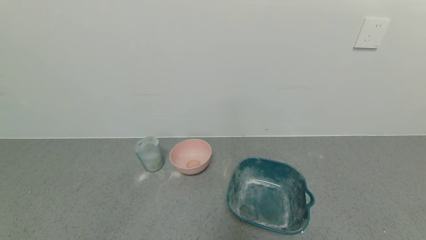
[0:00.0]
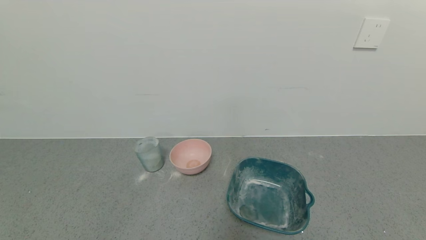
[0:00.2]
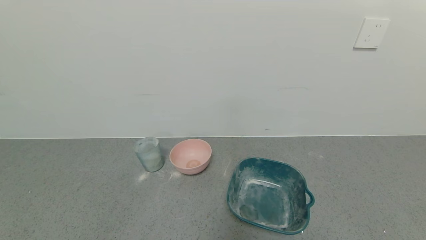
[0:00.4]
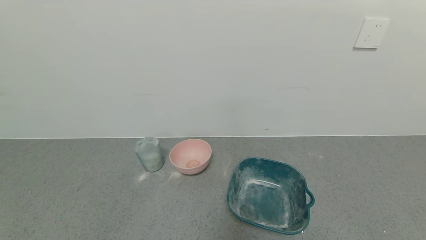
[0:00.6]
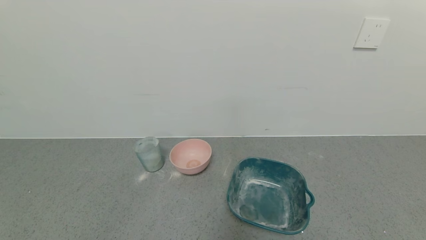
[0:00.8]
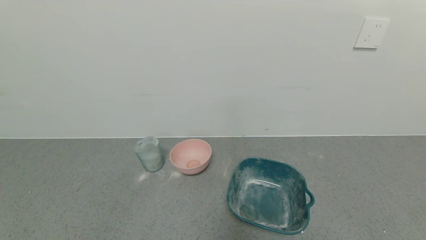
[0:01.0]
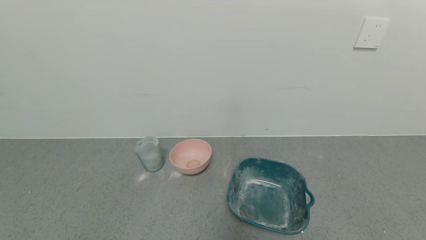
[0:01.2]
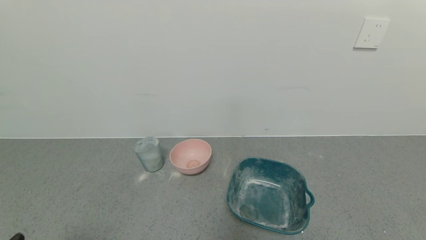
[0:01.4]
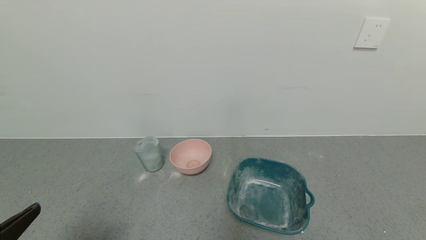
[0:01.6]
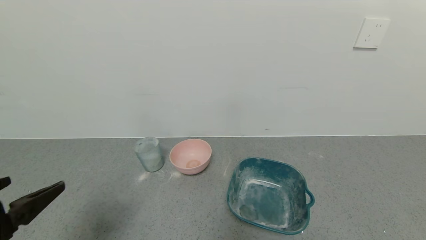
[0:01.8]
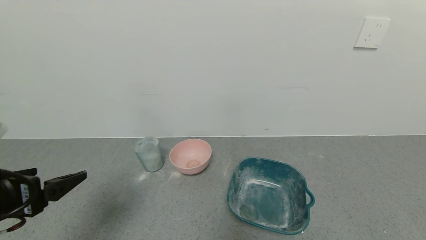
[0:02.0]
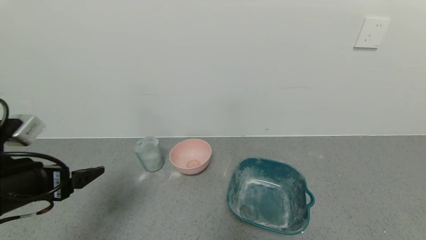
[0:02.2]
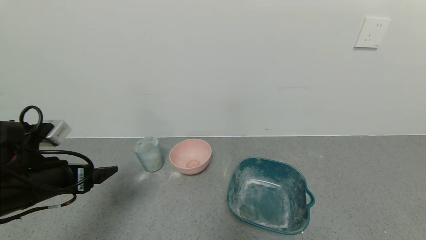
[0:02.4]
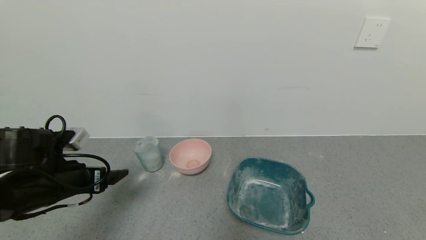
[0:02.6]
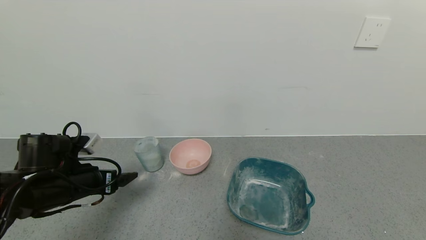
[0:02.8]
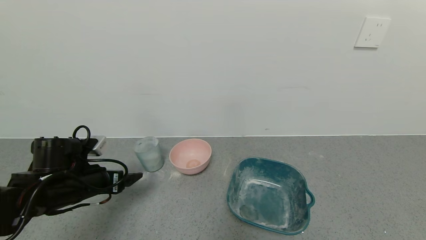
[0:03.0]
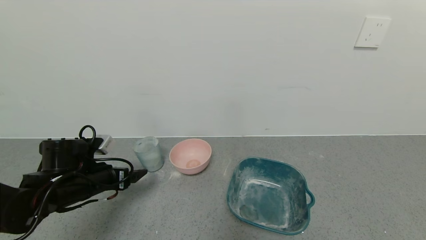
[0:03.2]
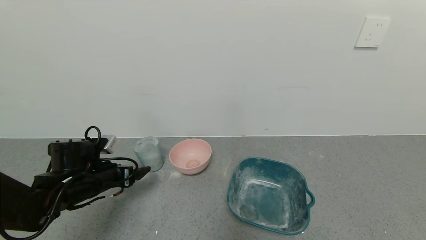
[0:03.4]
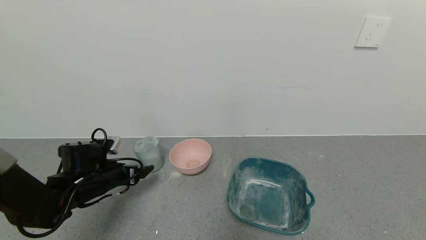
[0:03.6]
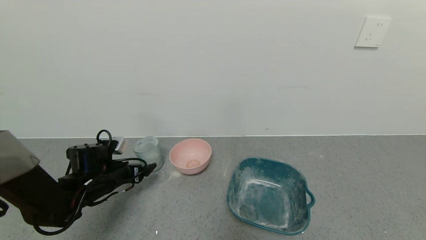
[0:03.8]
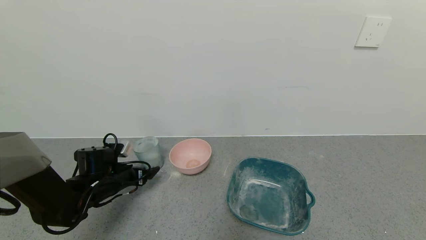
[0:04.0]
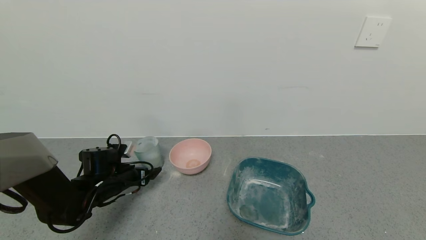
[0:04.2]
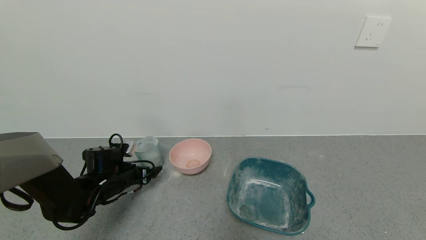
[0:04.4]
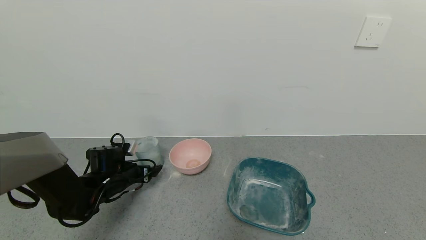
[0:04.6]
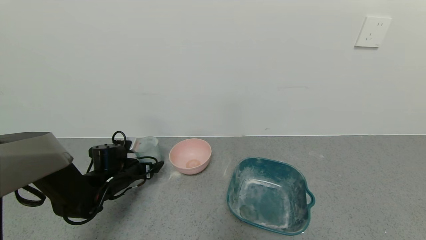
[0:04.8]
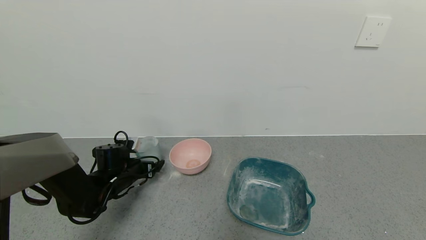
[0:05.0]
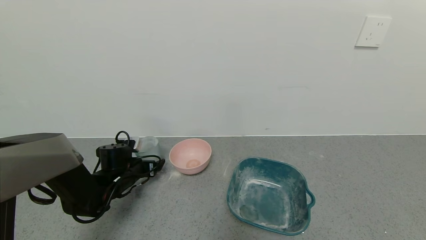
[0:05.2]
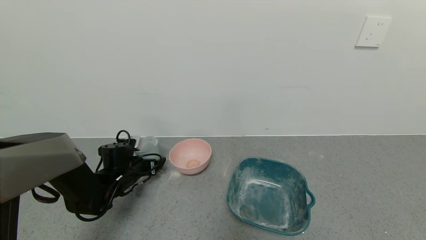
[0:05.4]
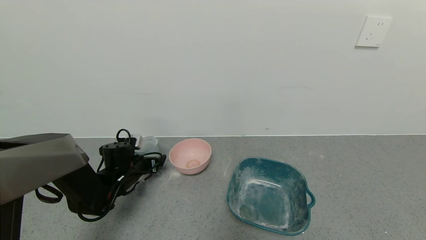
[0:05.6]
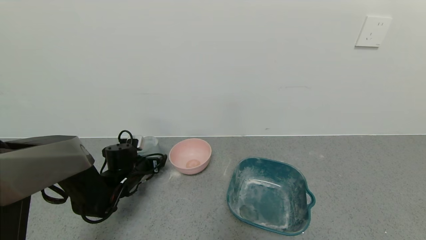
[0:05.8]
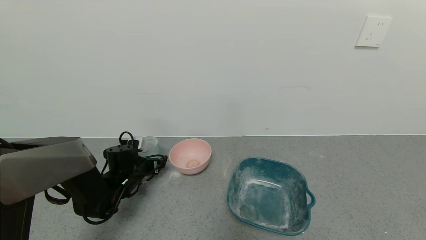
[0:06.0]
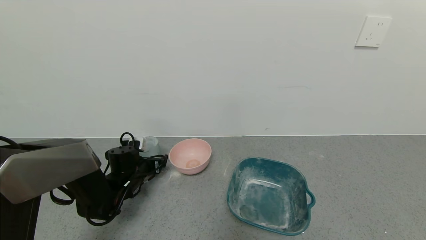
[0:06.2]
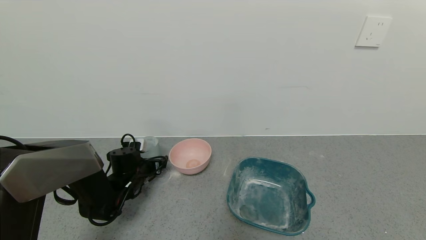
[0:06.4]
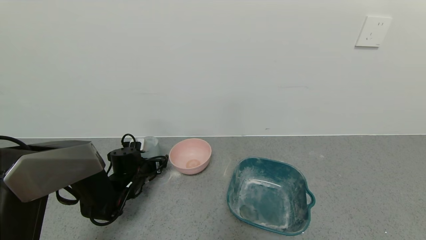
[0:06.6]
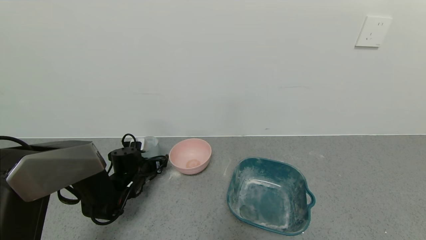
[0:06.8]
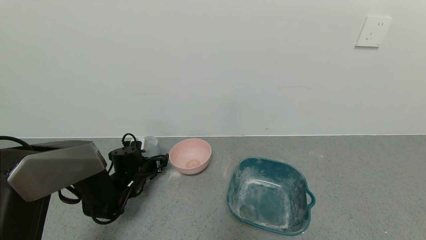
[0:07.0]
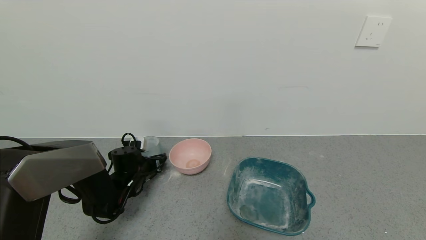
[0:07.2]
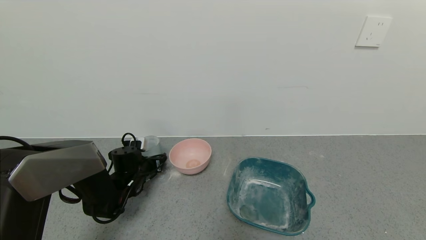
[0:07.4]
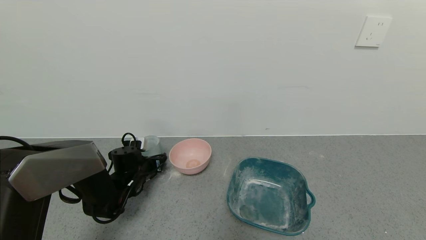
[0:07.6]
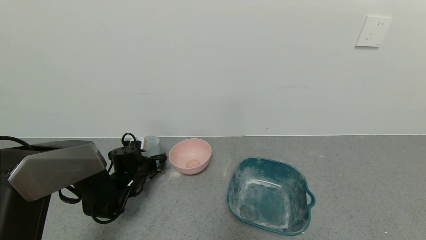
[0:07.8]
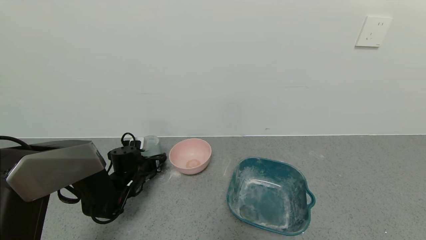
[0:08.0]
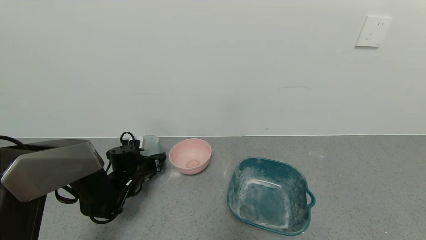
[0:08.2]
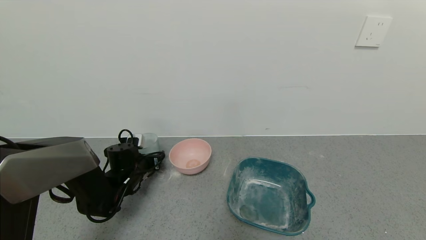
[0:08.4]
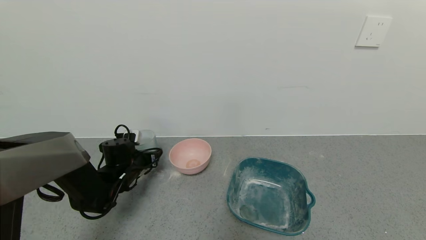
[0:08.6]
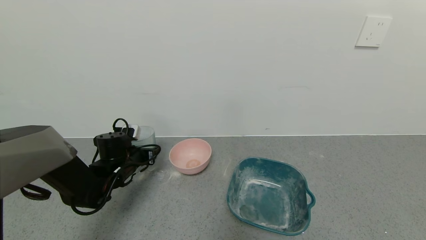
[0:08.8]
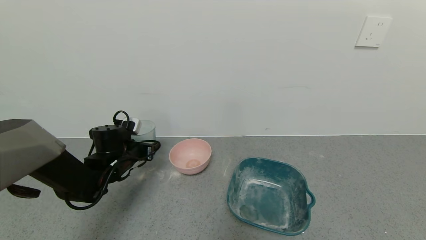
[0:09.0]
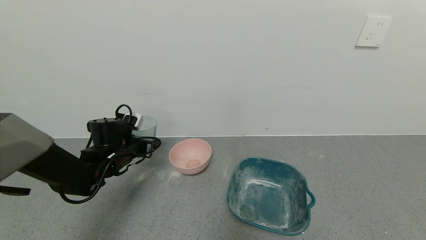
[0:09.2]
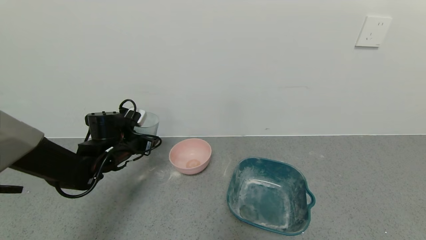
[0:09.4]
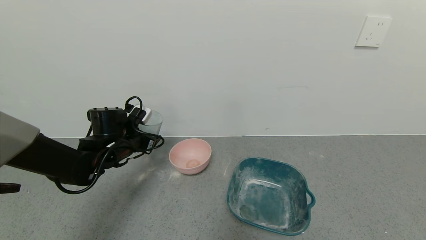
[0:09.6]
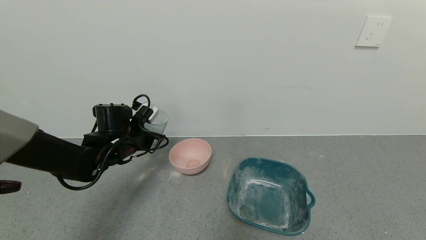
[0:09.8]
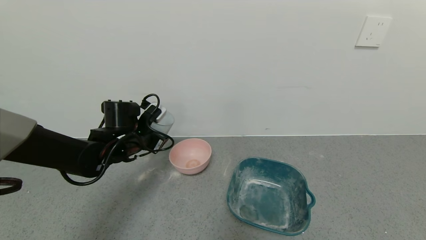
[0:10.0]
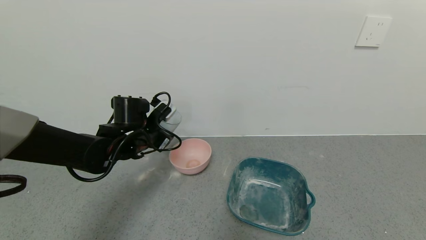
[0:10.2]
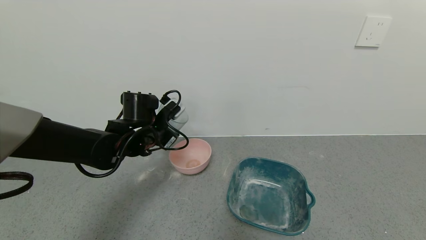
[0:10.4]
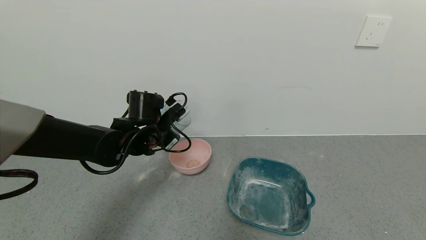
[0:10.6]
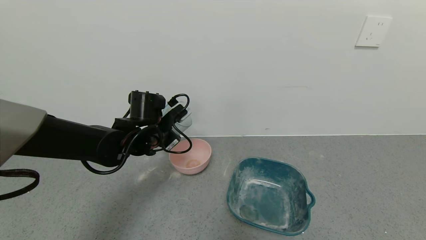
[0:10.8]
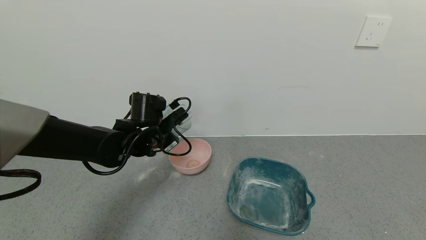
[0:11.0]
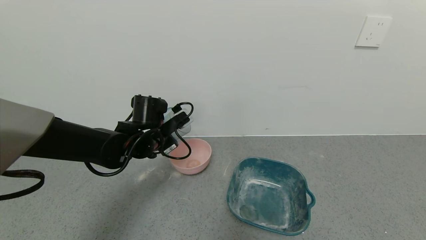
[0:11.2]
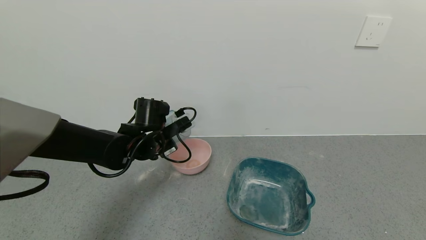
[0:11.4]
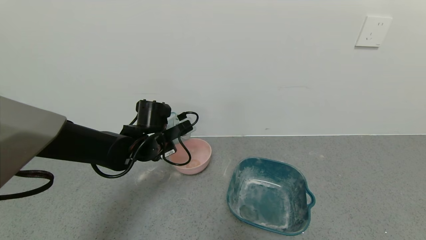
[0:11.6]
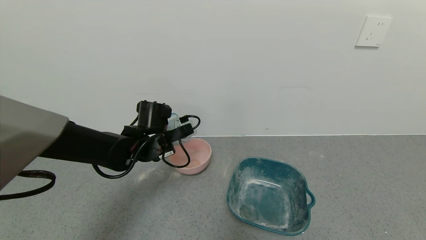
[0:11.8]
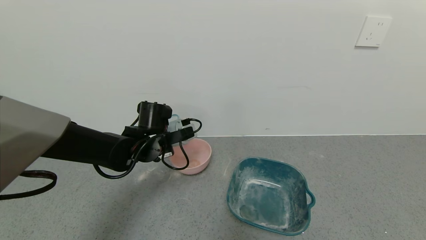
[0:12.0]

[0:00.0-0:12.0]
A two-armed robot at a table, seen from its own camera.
Task of the whole recording: use a gripper to pick up the cup and pour the powder into a bowl or tray.
Step, 0:00.0 to 0:07.4: Grasp the glass of powder with the left gripper.
0:00.0 to 0:01.6: The left gripper is displaced upward and forward by approximately 15 cm.
0:01.6 to 0:03.0: The left gripper is displaced forward and downward by some 25 cm.
0:03.0 to 0:04.4: The left gripper is displaced downward and forward by approximately 10 cm.
0:04.4 to 0:06.0: The grippers stay close to where they were, moving slightly.
0:06.0 to 0:07.6: The left gripper closes.
0:07.6 to 0:09.0: The left gripper goes approximately 10 cm upward.
0:09.0 to 0:10.4: The left gripper travels to the right and upward by about 10 cm.

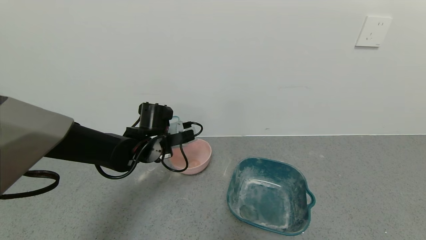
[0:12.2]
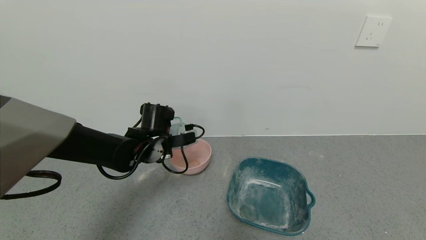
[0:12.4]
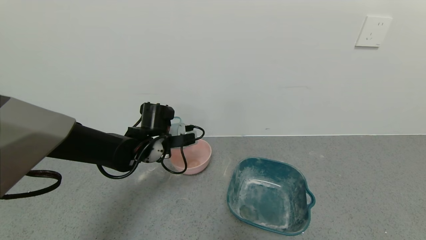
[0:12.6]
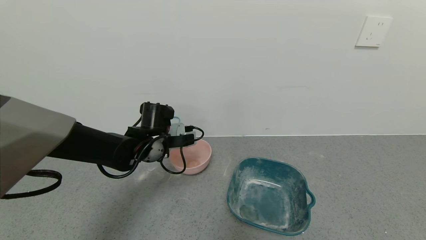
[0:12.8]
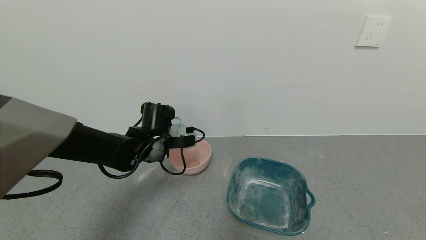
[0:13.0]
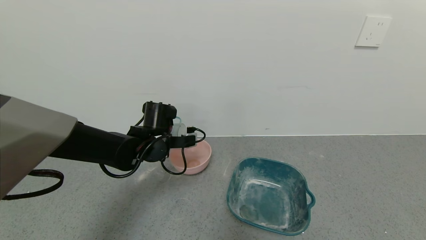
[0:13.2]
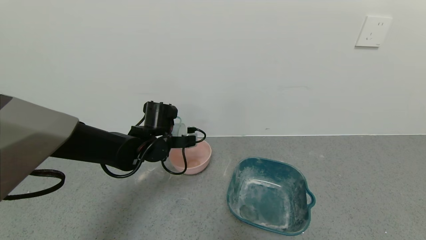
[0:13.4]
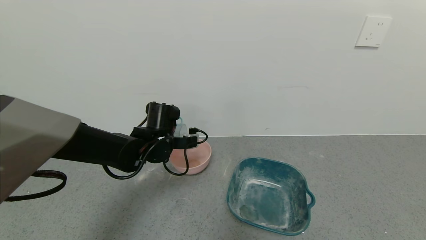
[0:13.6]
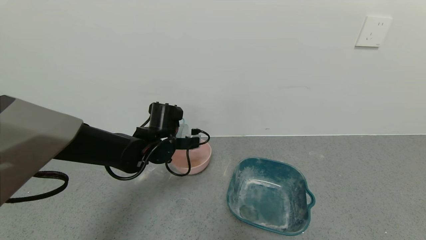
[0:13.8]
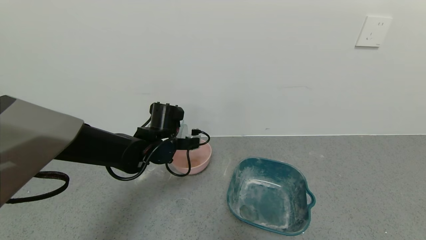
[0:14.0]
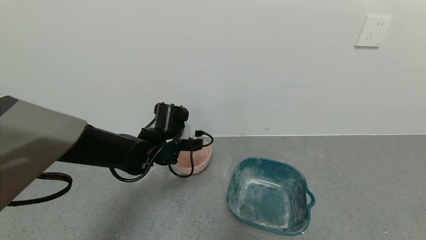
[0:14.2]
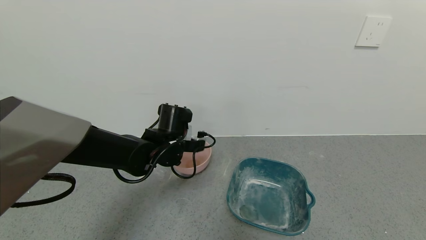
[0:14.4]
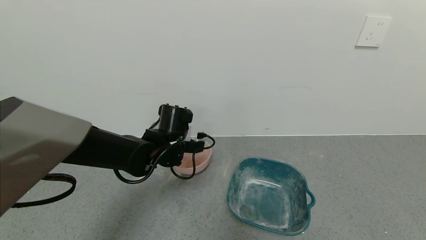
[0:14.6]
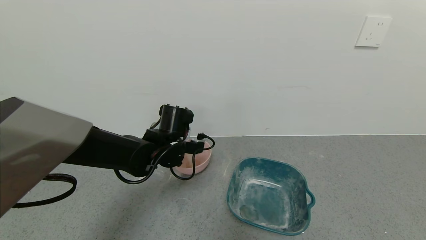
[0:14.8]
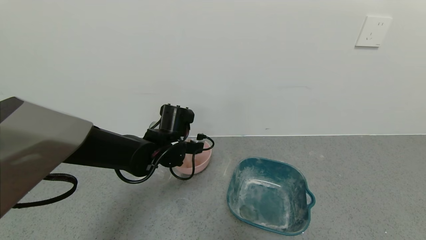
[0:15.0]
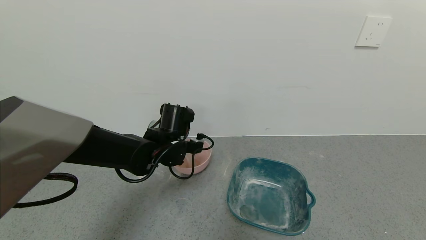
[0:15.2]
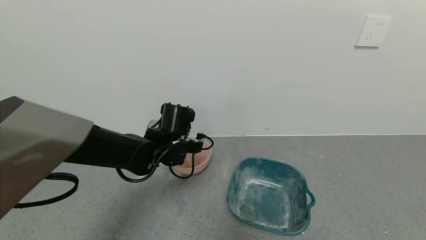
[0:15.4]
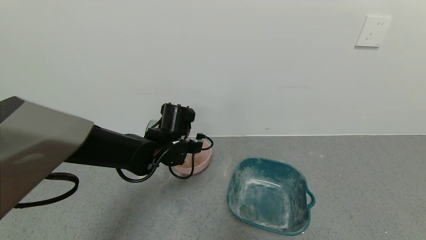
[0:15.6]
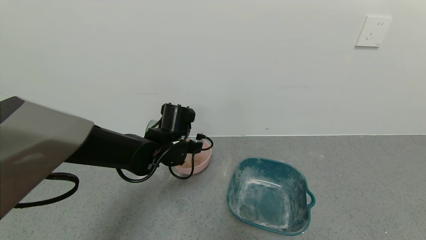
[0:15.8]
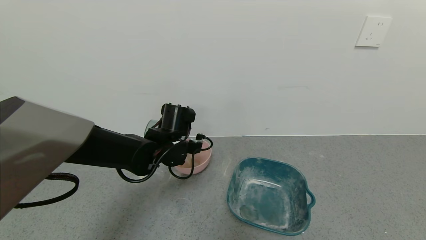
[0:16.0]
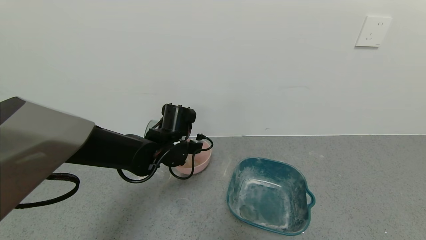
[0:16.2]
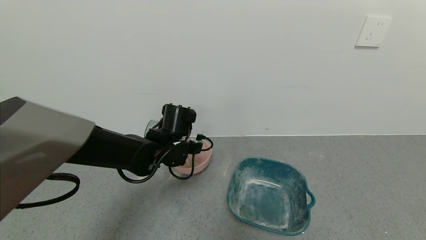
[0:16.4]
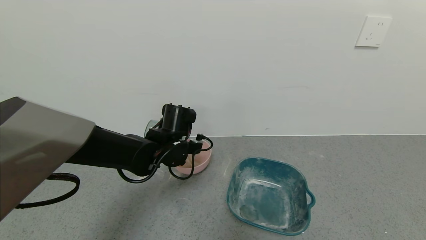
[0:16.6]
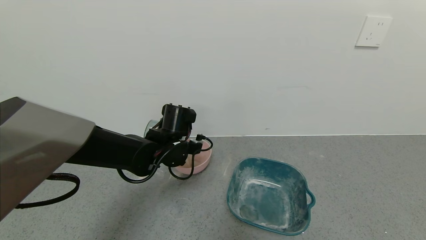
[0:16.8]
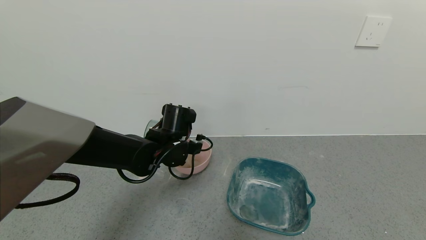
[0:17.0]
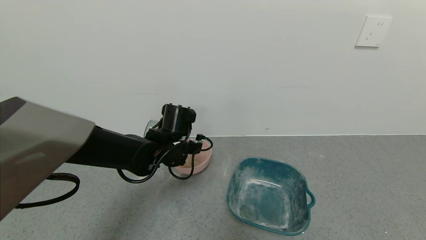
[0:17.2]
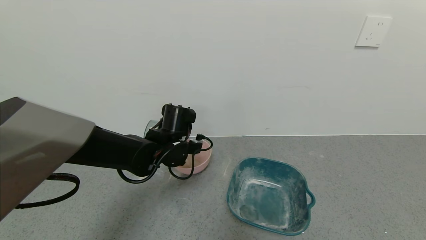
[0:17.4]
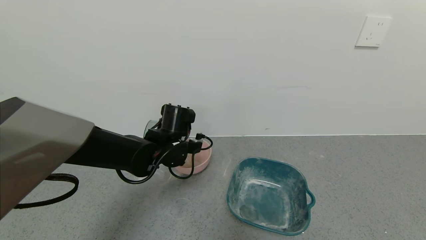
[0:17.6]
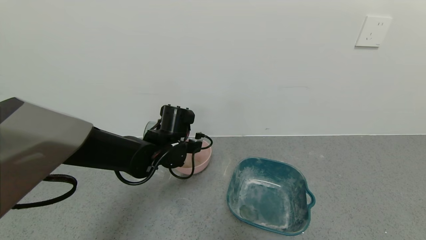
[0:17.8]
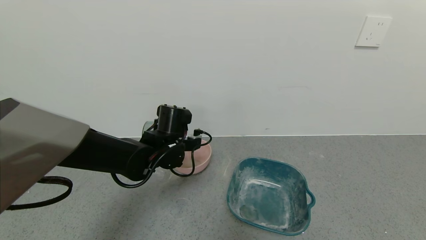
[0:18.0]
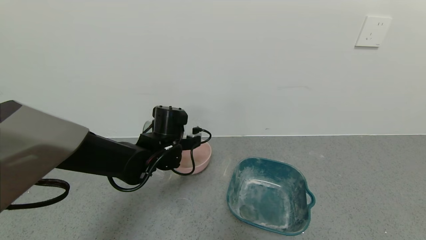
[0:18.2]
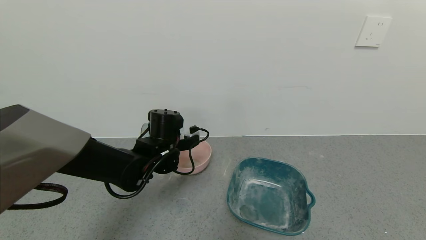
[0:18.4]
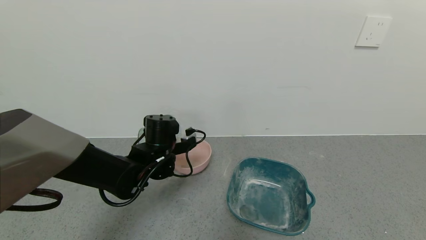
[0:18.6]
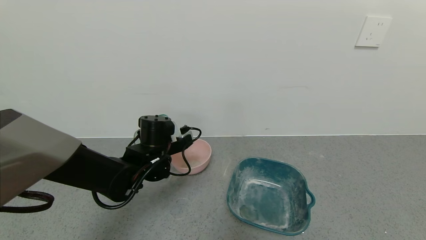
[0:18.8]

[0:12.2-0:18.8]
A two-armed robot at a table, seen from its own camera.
Task of the whole recording: use a gripper to pick up the cup and pour the powder into a bowl or tray.
Step, 0:12.2 to 0:18.0: Pour the powder into the pink bowl with the left gripper.
0:12.2 to 0:13.8: The grippers make only small movements.
0:13.8 to 0:15.4: There are only small adjustments of the grippers.
0:15.4 to 0:17.2: Both grippers stay about where they are.
